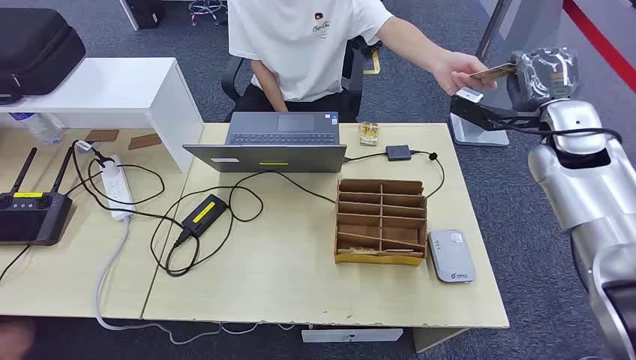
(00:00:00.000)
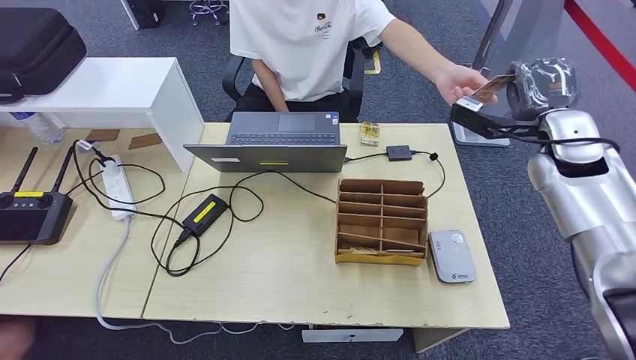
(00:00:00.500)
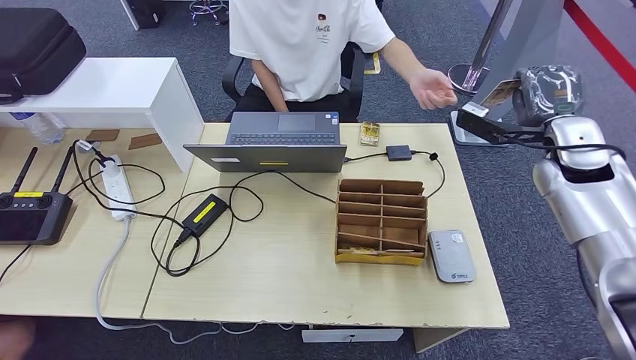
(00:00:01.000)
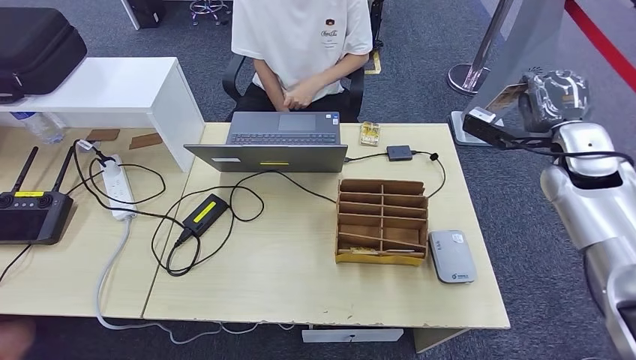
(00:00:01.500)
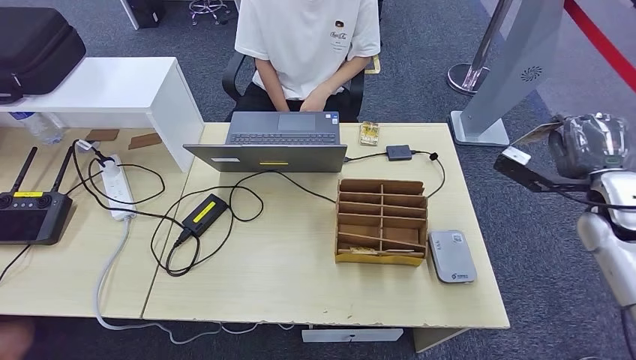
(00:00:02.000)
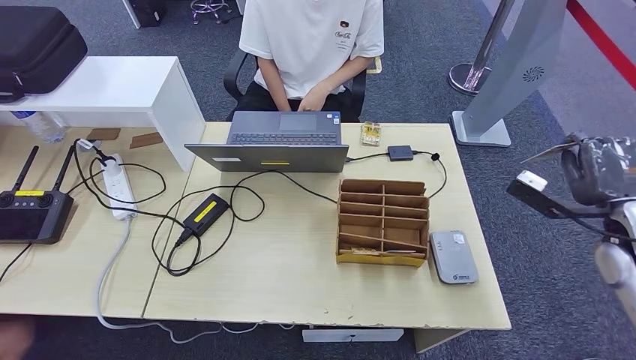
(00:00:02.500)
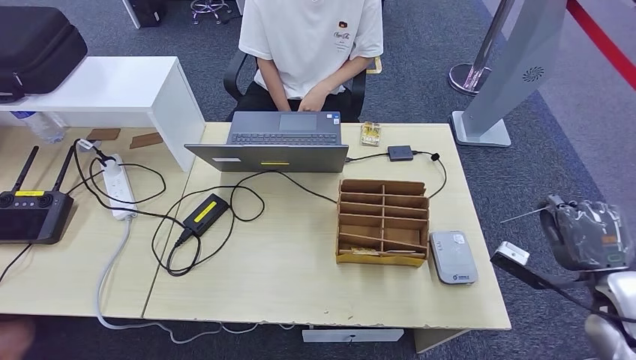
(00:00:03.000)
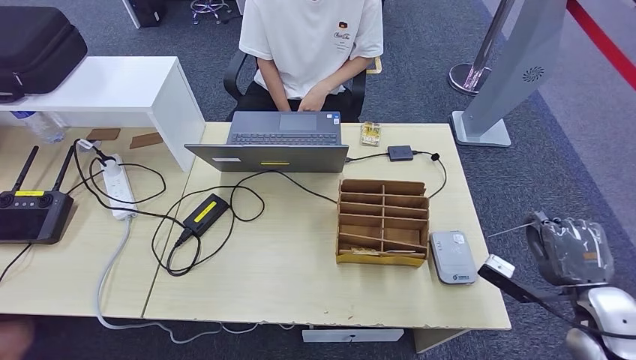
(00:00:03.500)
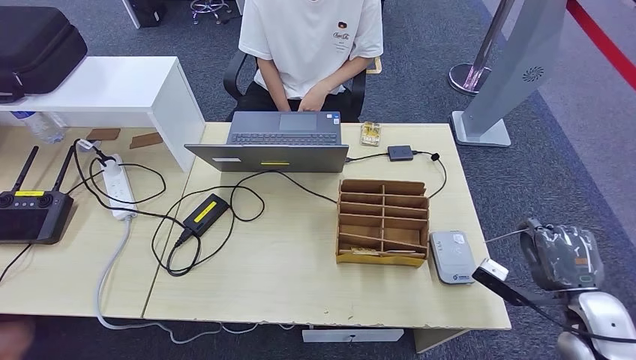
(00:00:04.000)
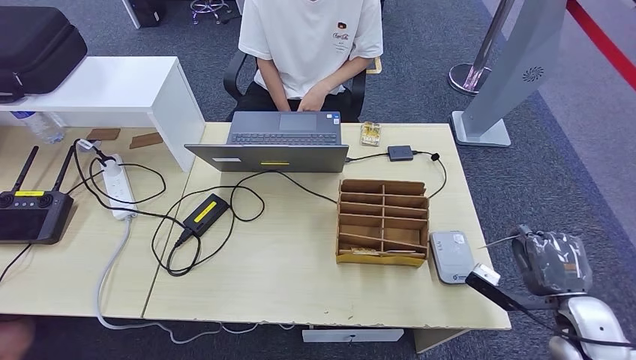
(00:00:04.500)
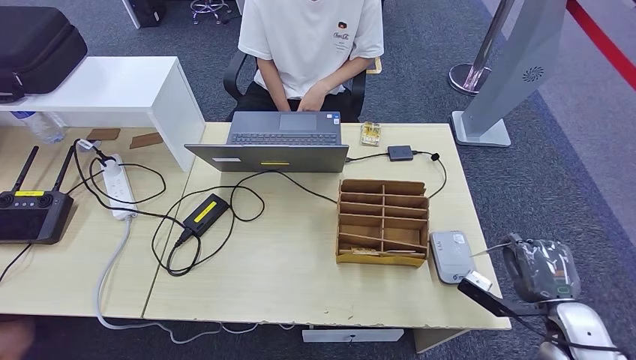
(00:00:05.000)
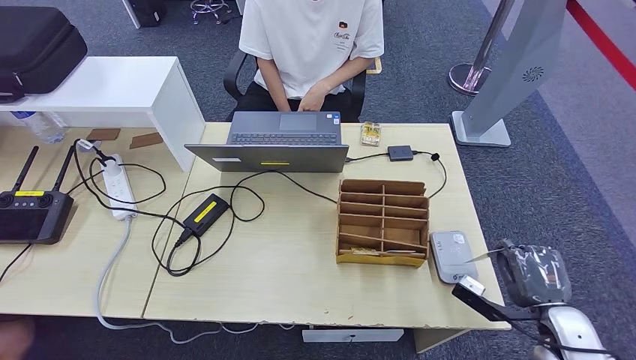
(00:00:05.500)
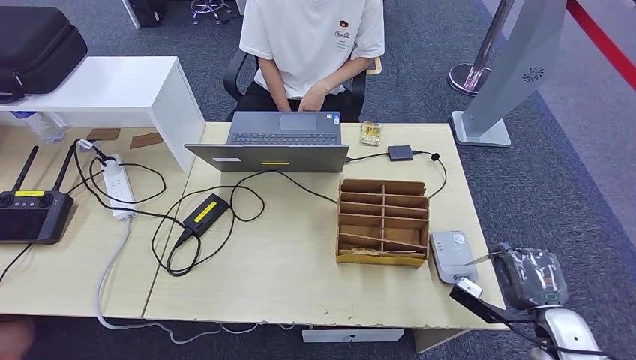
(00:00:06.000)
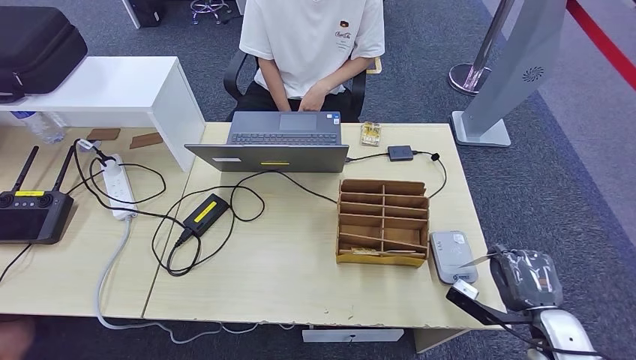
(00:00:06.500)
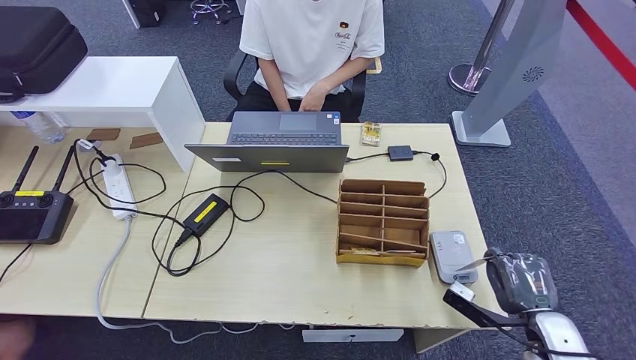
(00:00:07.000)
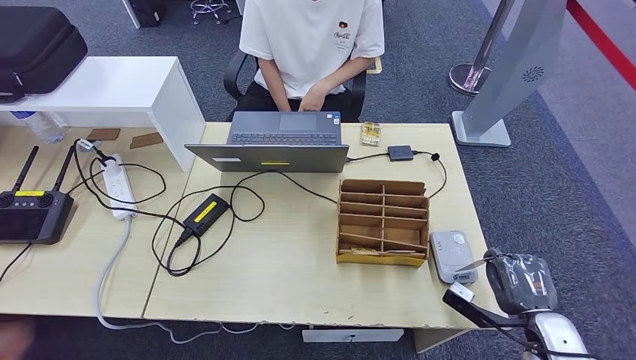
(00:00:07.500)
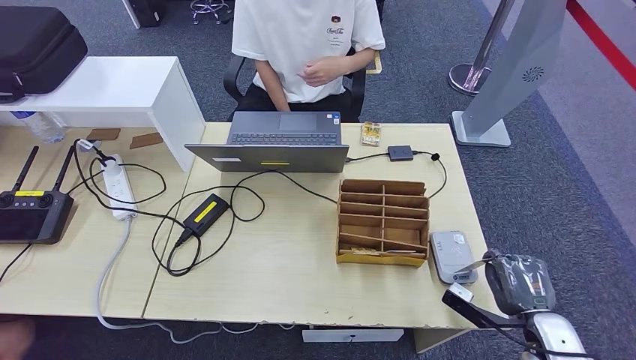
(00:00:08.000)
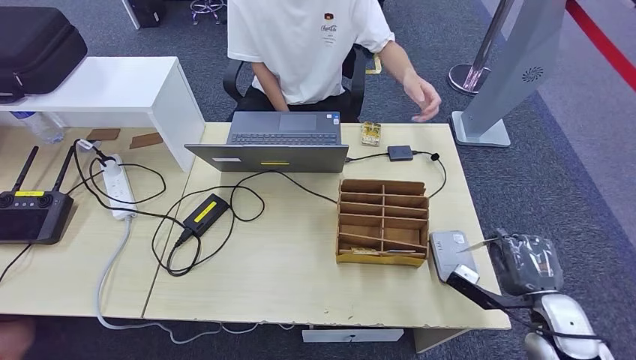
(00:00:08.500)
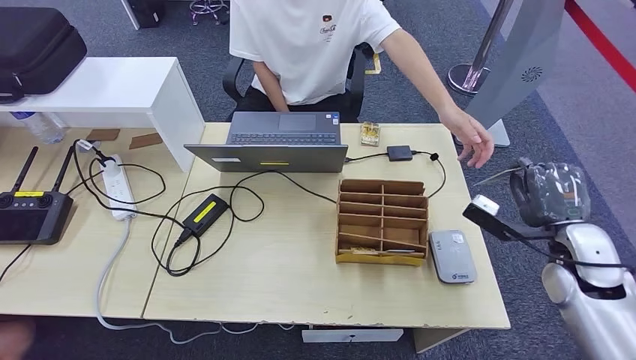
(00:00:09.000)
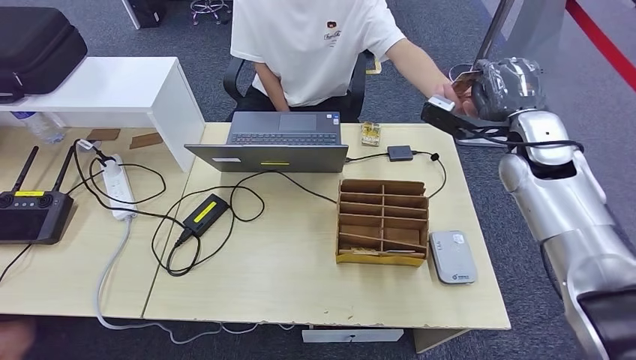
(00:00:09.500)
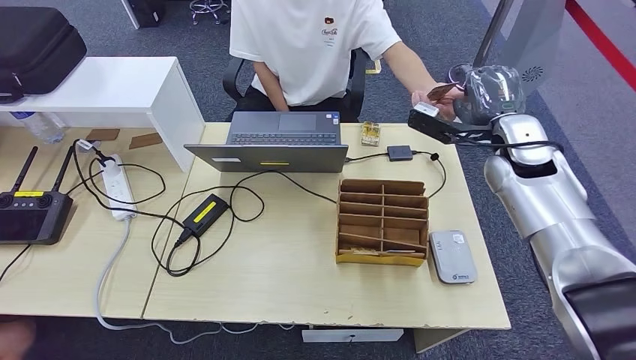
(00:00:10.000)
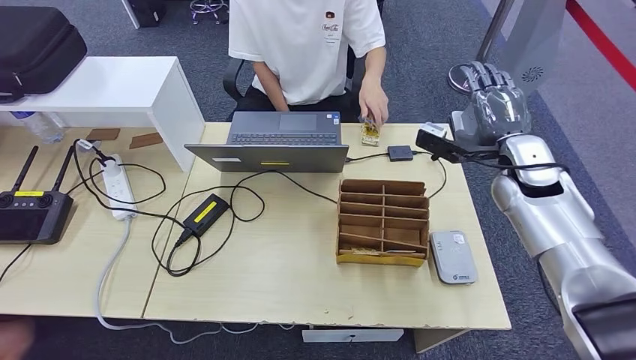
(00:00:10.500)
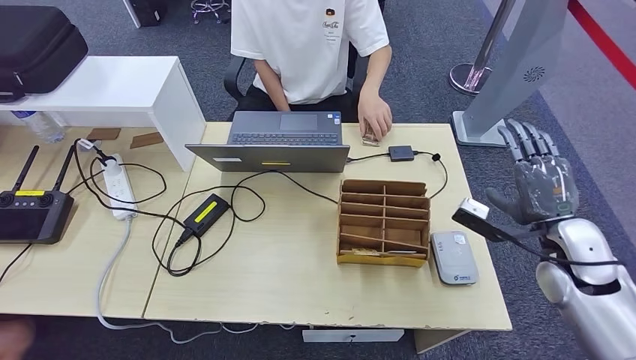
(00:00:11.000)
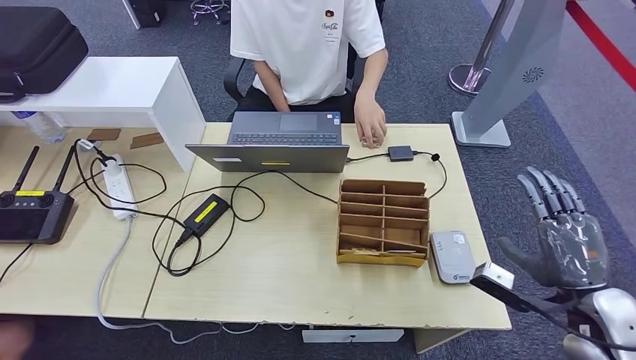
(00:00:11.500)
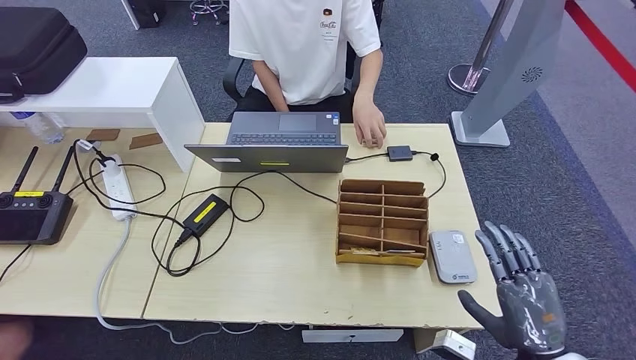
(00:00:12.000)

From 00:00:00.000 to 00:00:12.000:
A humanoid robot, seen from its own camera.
Step, from 00:00:00.000 to 00:00:01.000: Take the ID card from the person's hand.
Step, from 00:00:02.000 to 00:00:08.000: Place the ID card on the card reader.
From 00:00:02.000 to 00:00:04.000: The right hand shifts approximately 20 cm backward and downward.
From 00:00:04.000 to 00:00:06.000: The right hand heads downward, covering approximately 5 cm.
From 00:00:06.000 to 00:00:08.000: There are only small adjustments of the hands.
From 00:00:08.000 to 00:00:10.000: The right hand heads forward and upward, covering approximately 35 cm.
From 00:00:10.000 to 00:00:12.000: The right hand shifts about 35 cm backward and downward.

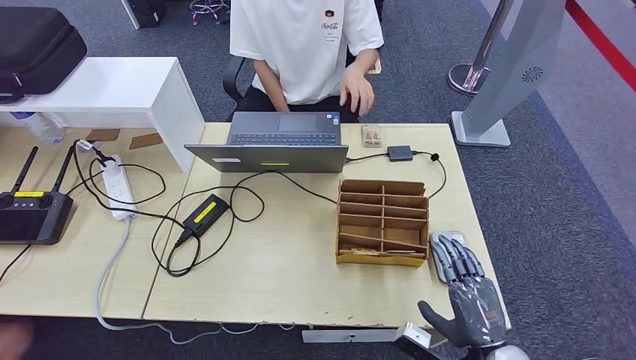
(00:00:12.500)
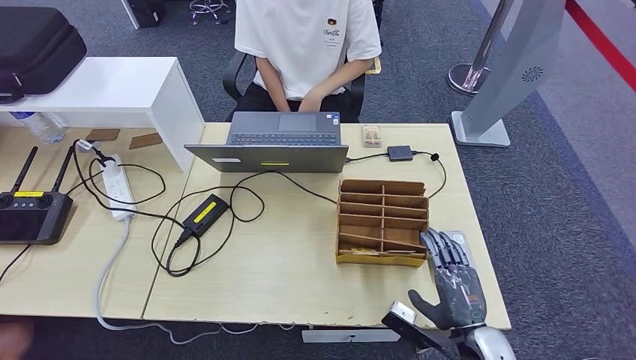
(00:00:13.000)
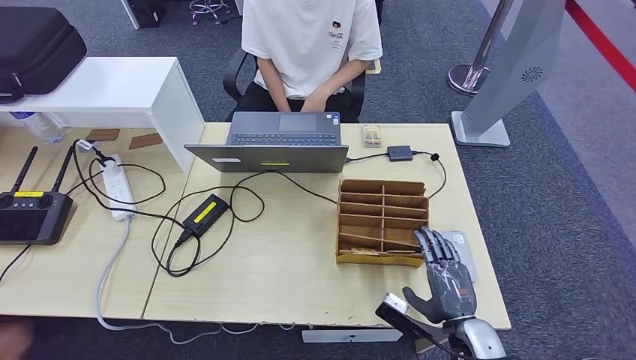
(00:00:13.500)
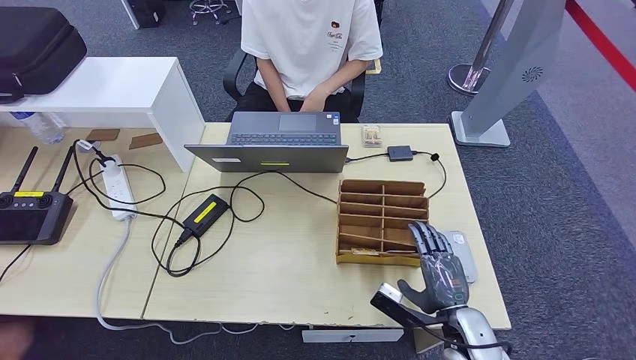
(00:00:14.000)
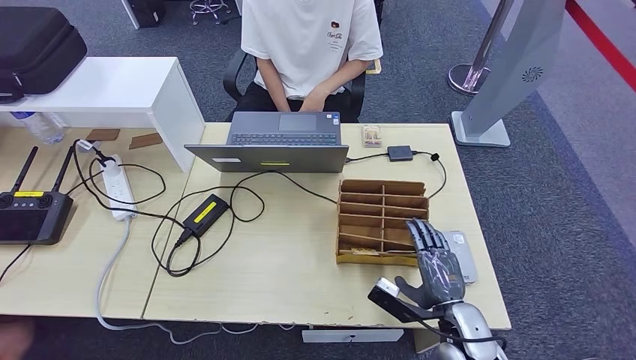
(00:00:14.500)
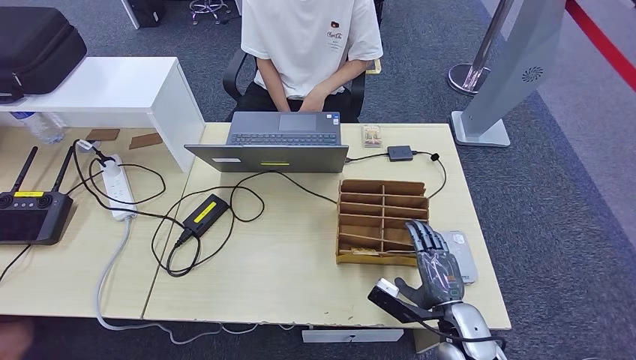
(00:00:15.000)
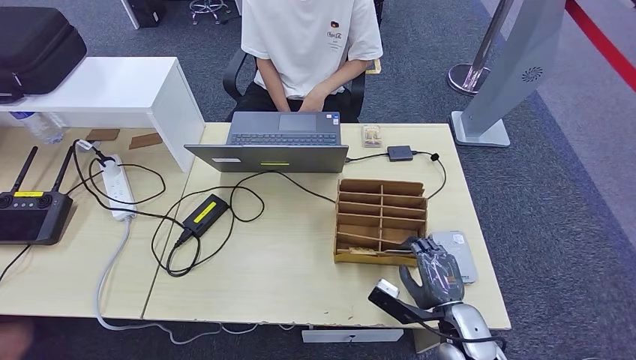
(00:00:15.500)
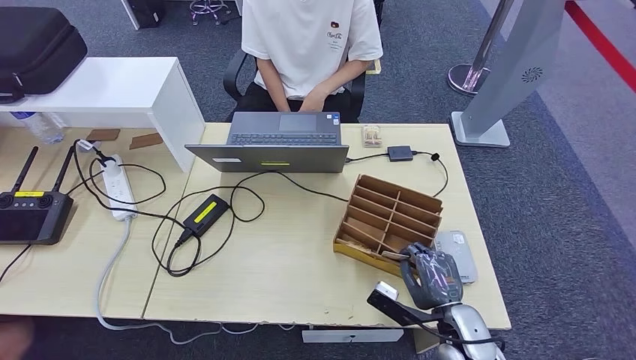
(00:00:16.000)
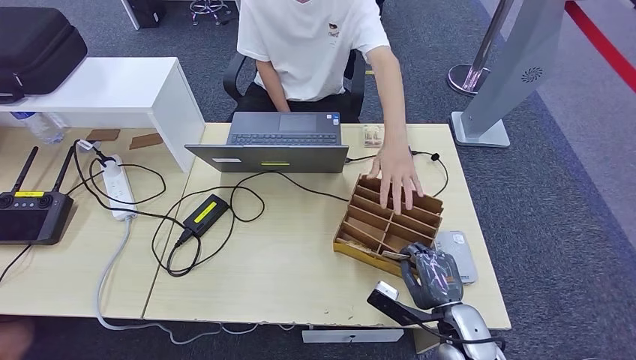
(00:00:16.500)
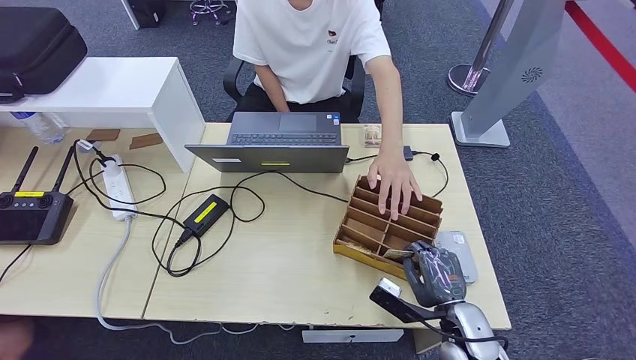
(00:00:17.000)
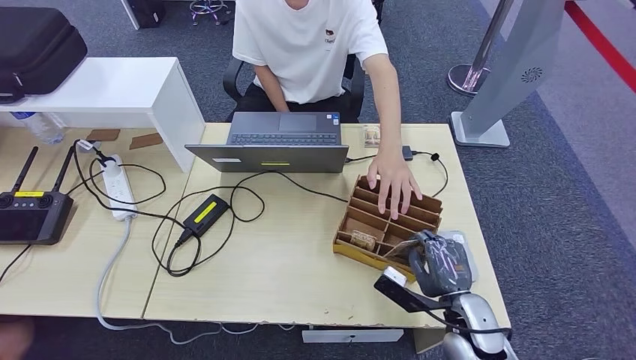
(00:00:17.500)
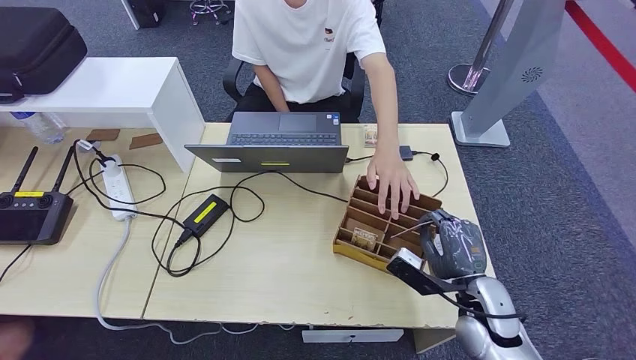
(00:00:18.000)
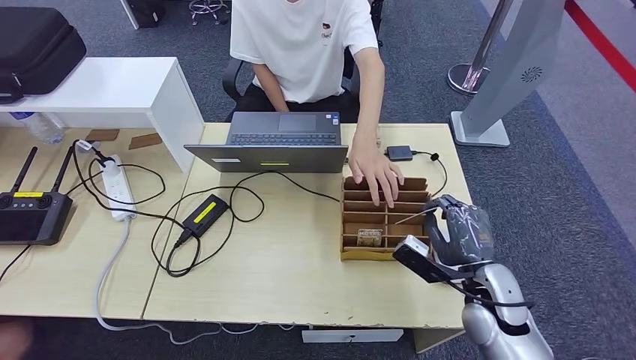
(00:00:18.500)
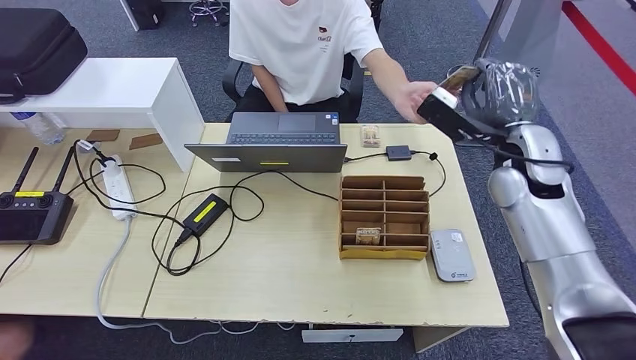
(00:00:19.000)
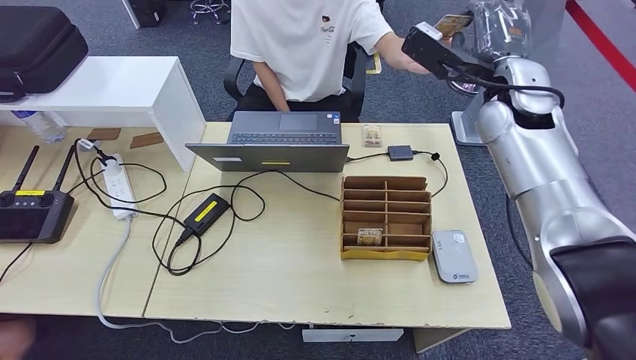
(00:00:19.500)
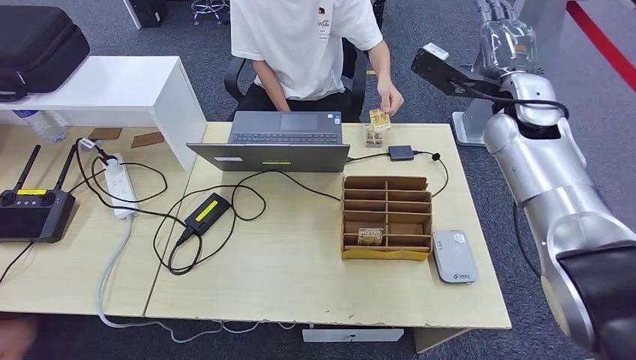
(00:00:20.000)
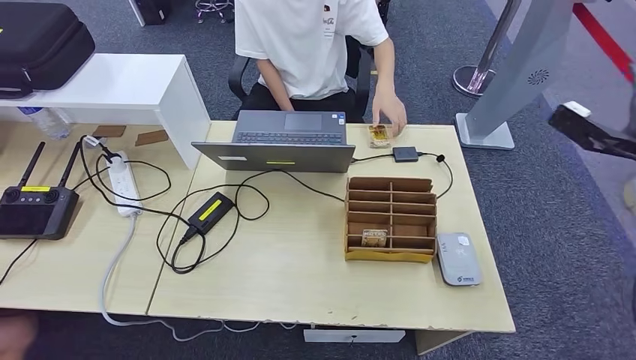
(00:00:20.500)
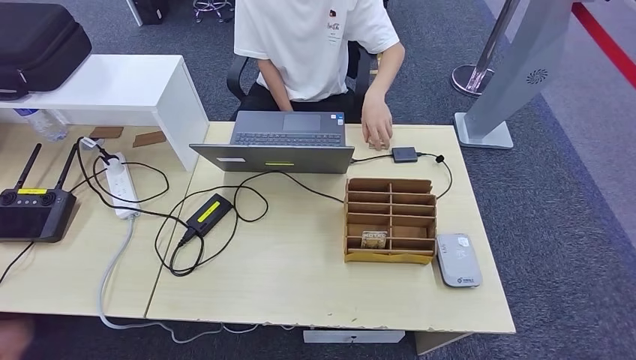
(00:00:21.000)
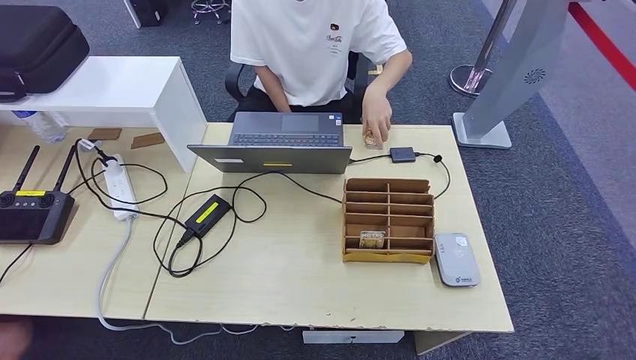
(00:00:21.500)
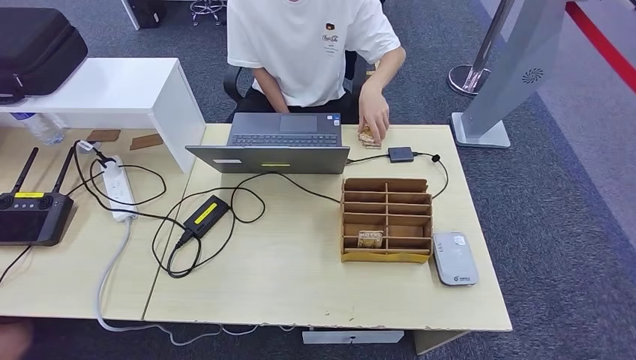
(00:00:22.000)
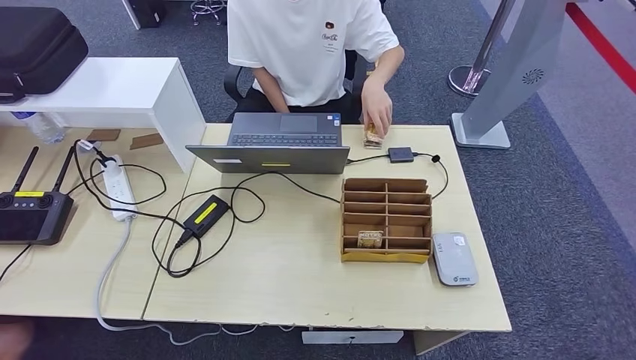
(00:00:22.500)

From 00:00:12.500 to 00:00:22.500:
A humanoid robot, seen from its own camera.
Step, from 00:00:13.000 to 00:00:18.500: Pick up the room key from the key card box.
Step, from 00:00:19.000 to 00:00:22.500: Hand the room key to the person.
From 00:00:12.500 to 00:00:14.500: The right hand shifts some 5 cm forward.
From 00:00:14.500 to 00:00:16.500: The hands stay close to where they were, moving slightly.
From 00:00:16.500 to 00:00:18.500: The right hand travels upward and forward by approximately 10 cm.
